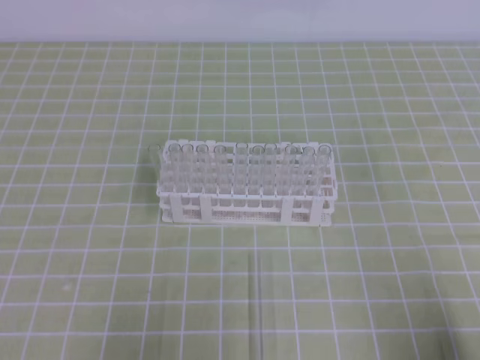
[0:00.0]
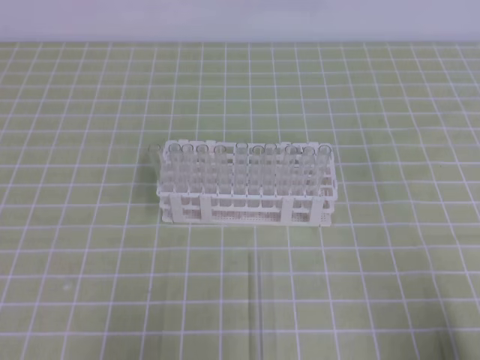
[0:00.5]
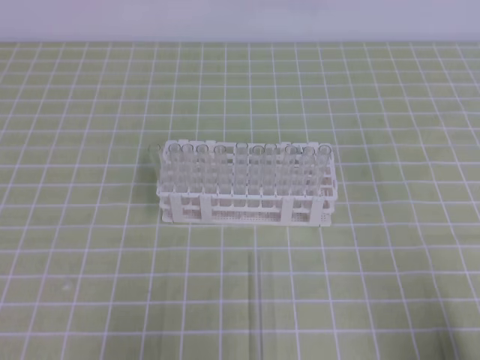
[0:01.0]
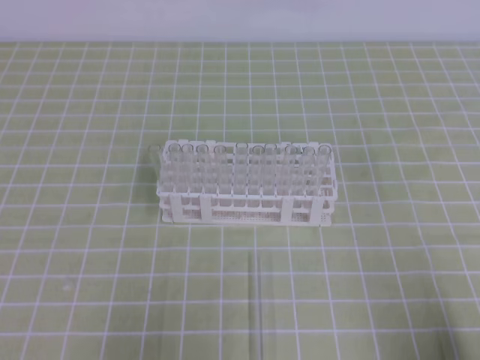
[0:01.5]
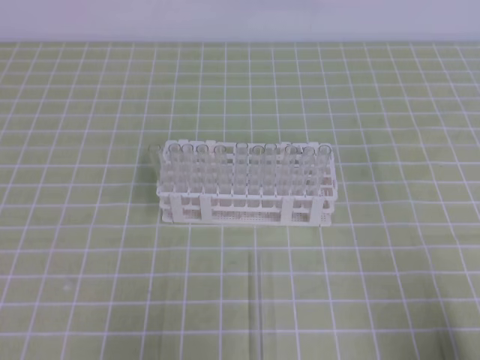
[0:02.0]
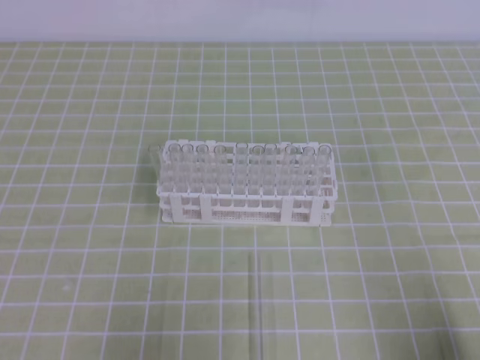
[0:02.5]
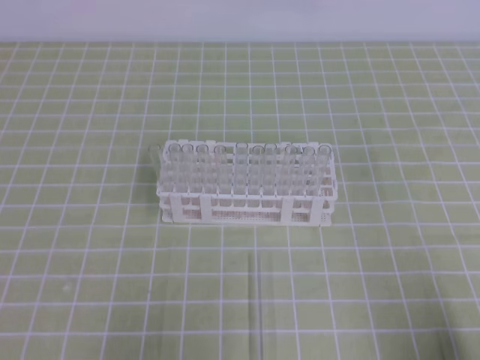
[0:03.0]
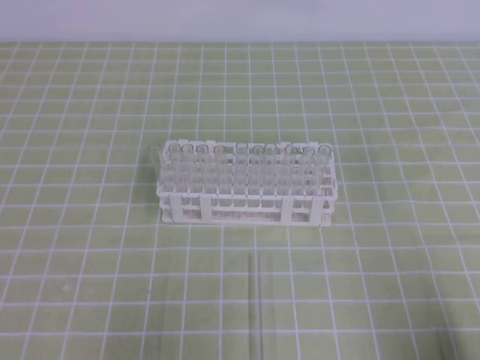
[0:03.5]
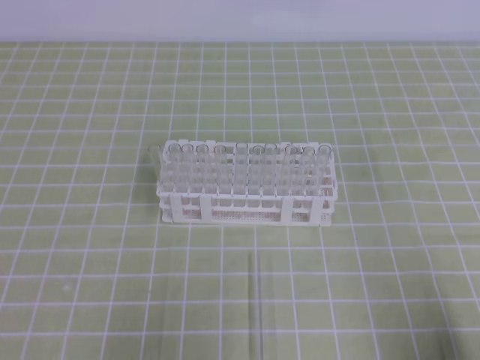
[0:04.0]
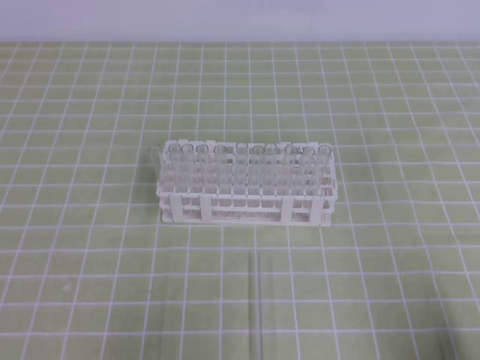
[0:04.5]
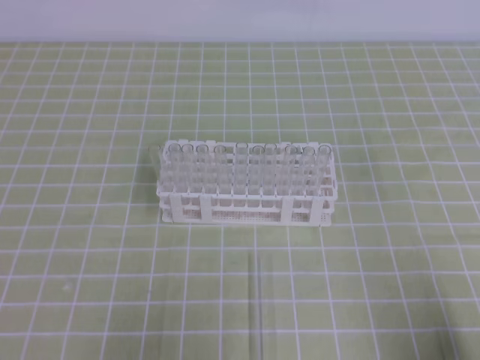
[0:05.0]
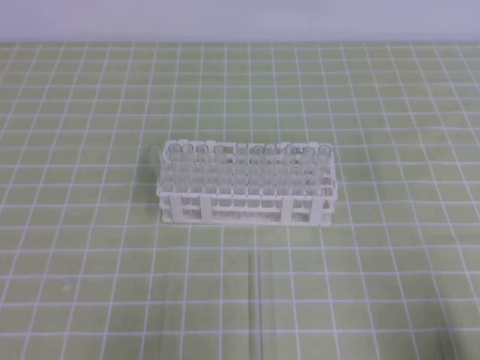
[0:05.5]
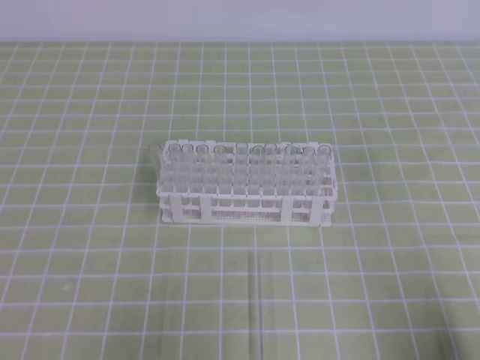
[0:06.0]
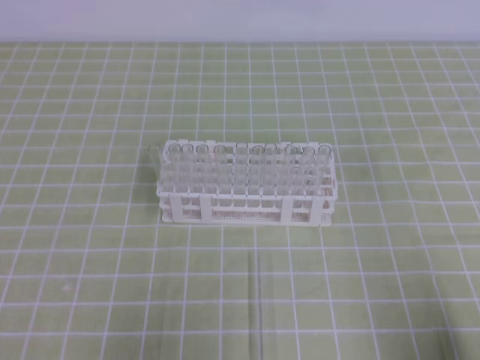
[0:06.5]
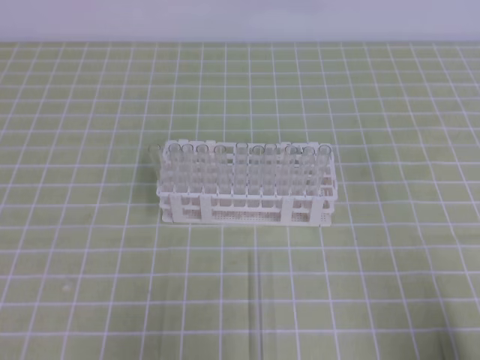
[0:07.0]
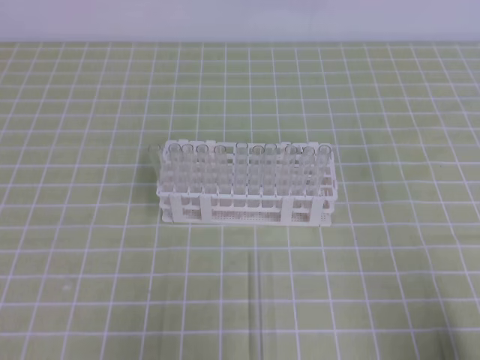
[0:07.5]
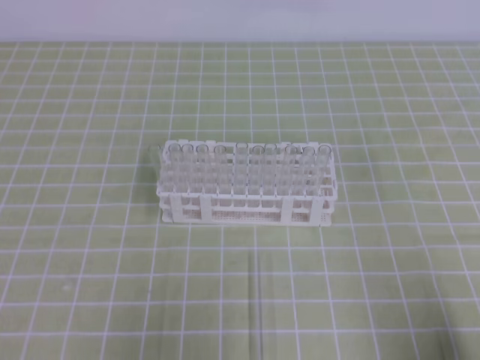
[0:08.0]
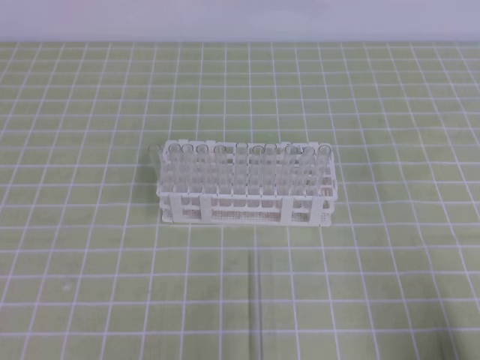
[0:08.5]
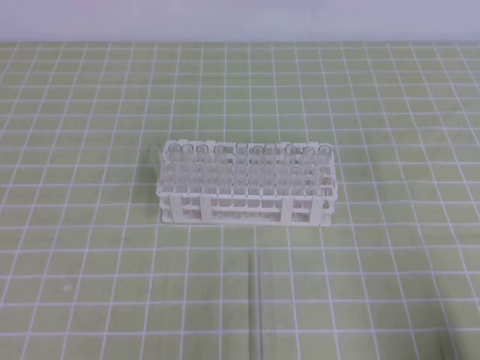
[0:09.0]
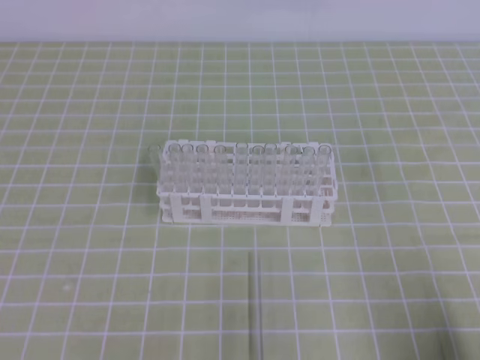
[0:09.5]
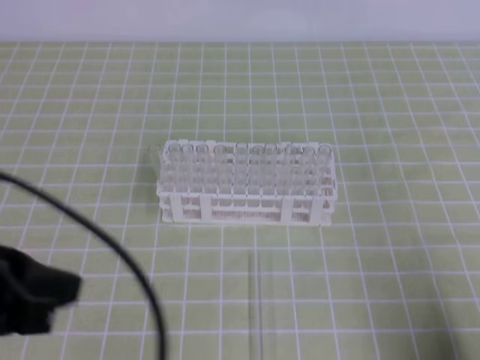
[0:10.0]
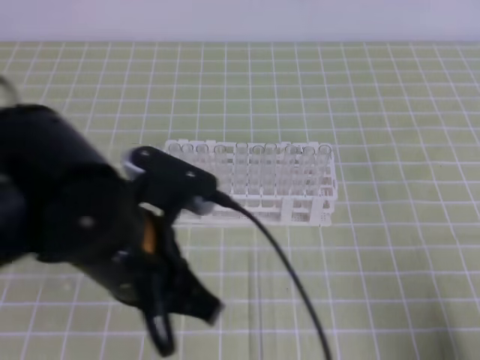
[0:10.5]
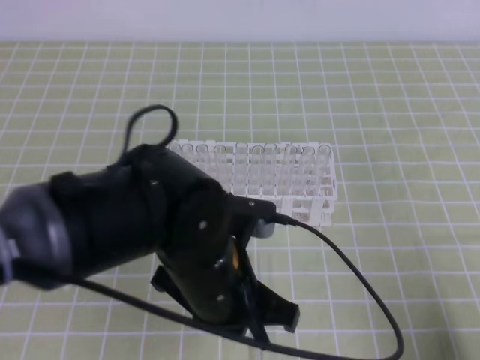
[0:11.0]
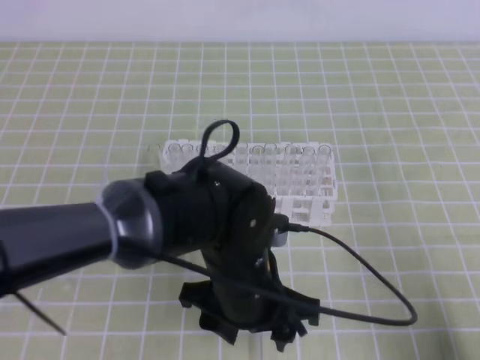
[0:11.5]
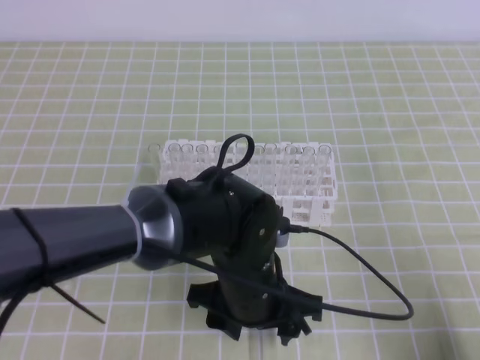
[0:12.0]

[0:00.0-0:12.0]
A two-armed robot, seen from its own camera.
0:00.0 to 0:06.0: Both grippers stay about where they are.
0:08.0 to 0:10.0: The left gripper heads upward and to the right, covering roughly 15 cm, and closes.
0:10.0 to 0:12.0: The left gripper is displaced to the right and downward by approximately 25 cm, and opens up.

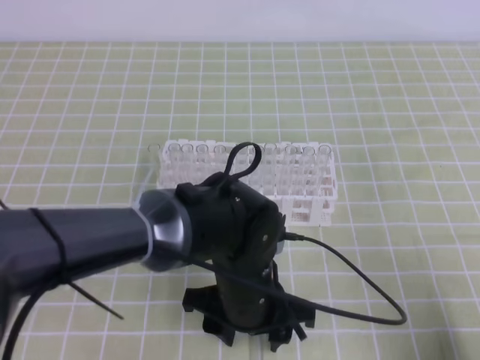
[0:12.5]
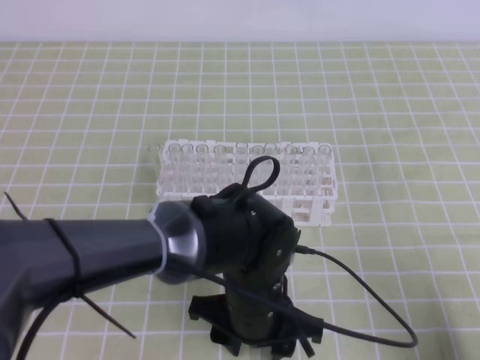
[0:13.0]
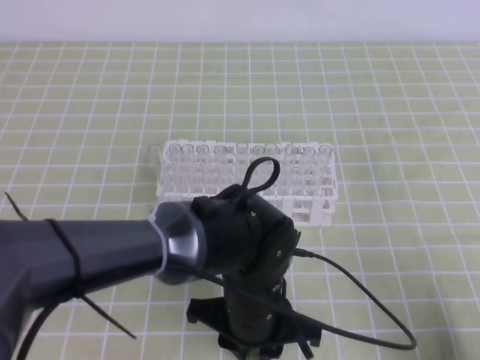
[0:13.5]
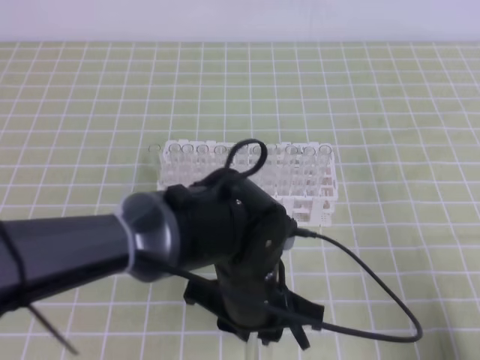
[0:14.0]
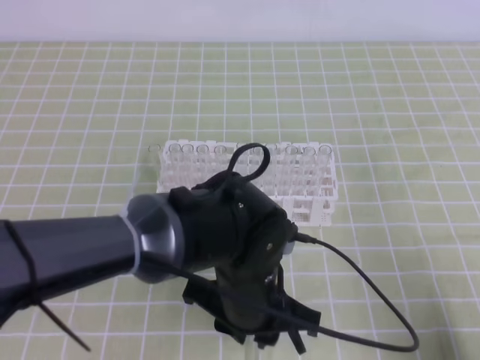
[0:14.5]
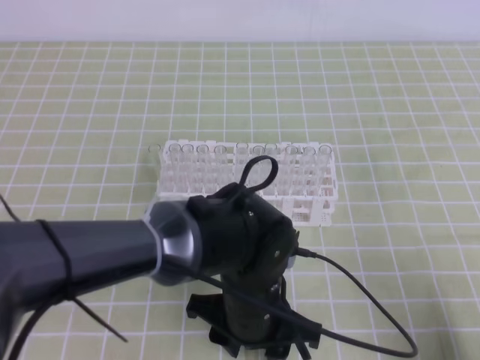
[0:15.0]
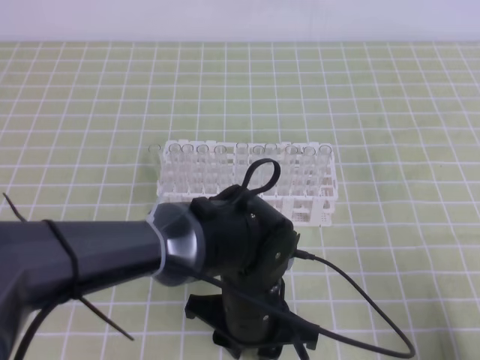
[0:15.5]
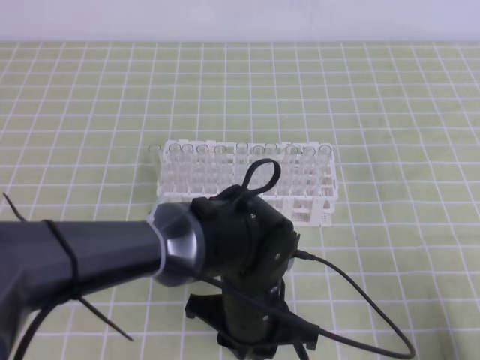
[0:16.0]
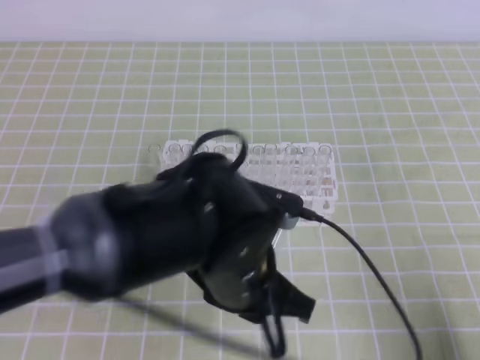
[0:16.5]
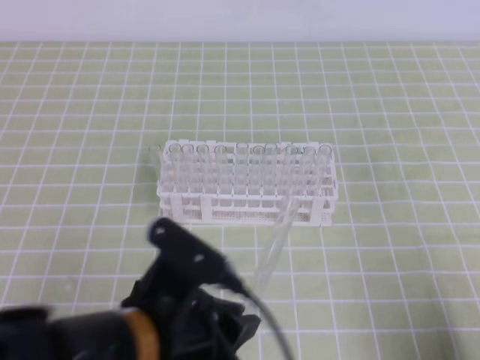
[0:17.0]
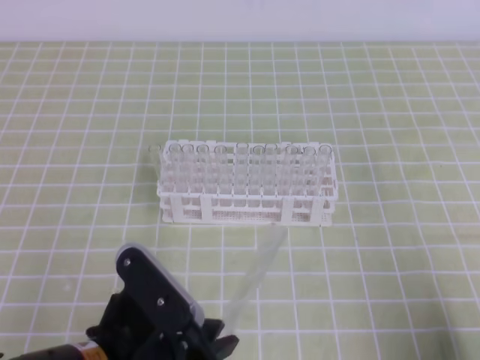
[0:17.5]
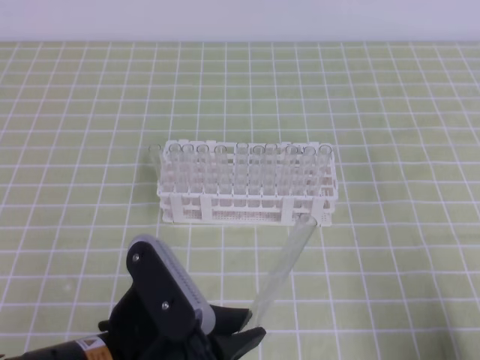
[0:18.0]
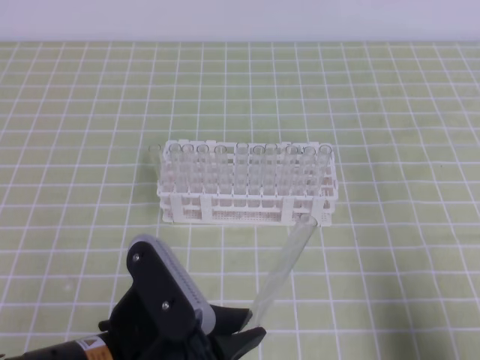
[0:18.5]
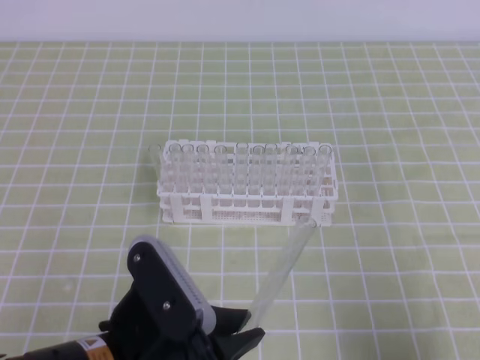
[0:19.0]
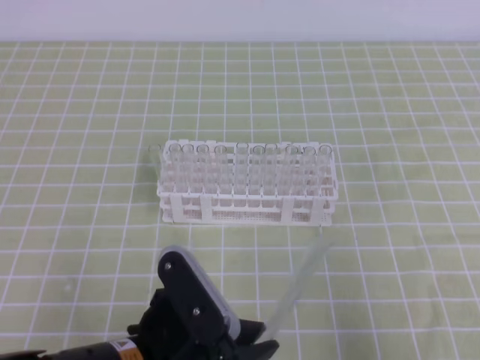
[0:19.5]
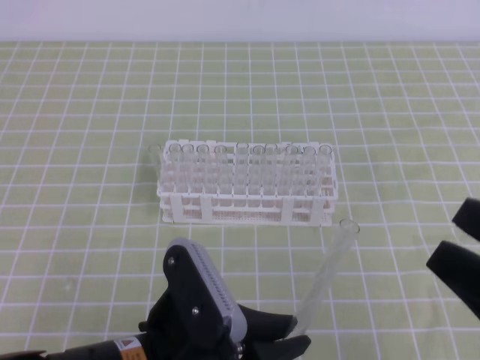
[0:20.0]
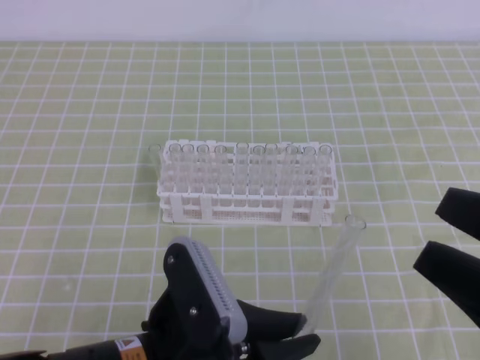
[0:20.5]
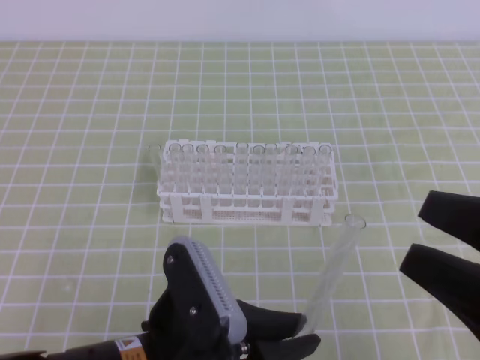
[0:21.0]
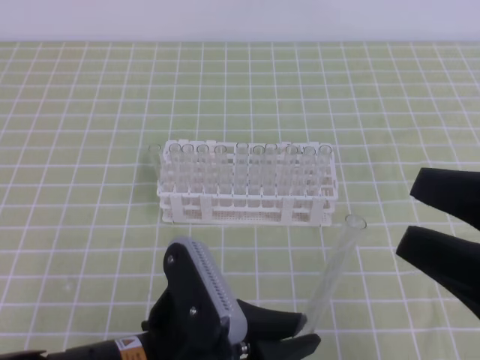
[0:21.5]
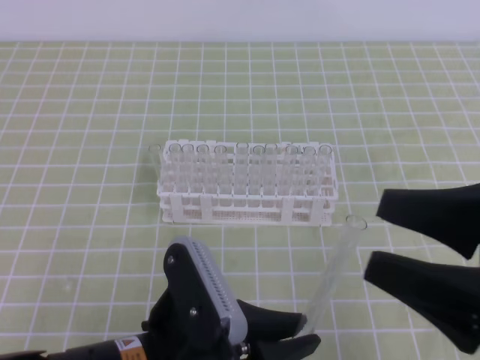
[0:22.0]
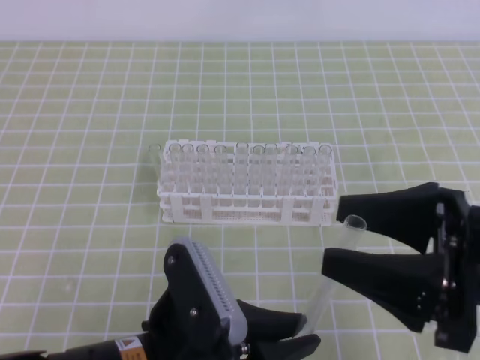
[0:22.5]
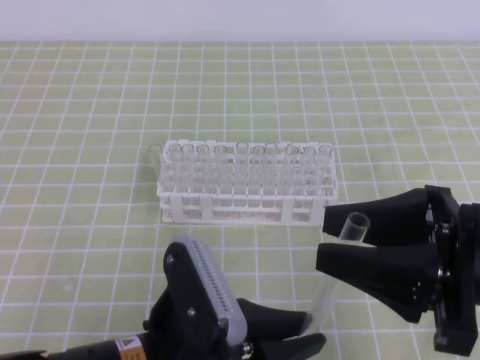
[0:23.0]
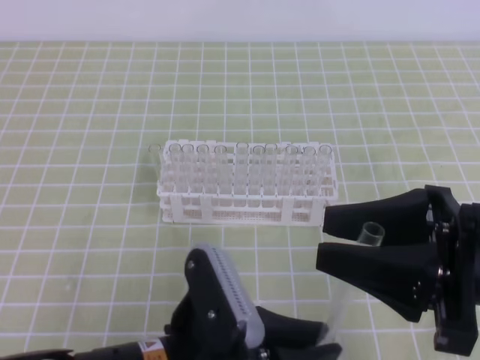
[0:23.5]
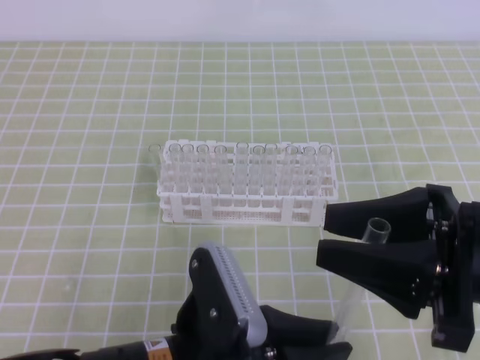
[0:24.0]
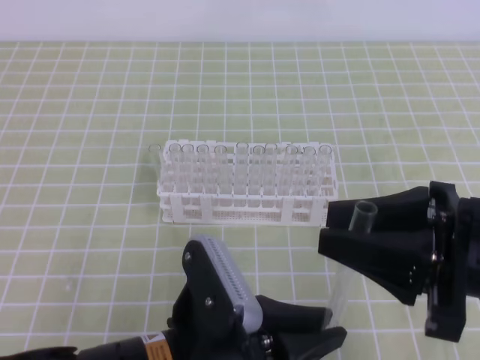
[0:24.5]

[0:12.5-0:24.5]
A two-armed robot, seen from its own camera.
0:12.5 to 0:14.5: The left gripper closes.
0:14.5 to 0:16.5: There are only small adjustments of the grippers.
0:16.5 to 0:18.5: The left gripper travels to the left and backward by about 10 cm.
0:18.5 to 0:20.5: The right gripper moves upward and to the left, about 15 cm, and opens up.
0:20.5 to 0:22.5: The right gripper changes place by about 5 cm.
0:22.5 to 0:24.5: The right gripper closes its fingers.

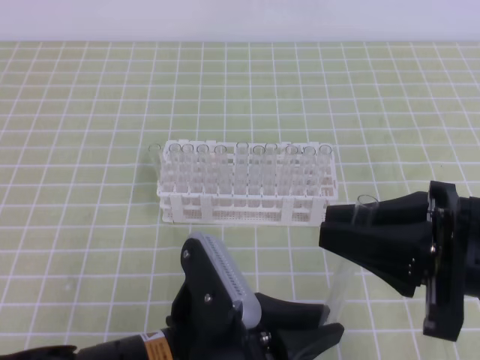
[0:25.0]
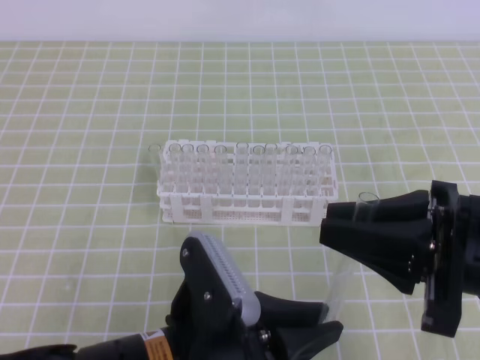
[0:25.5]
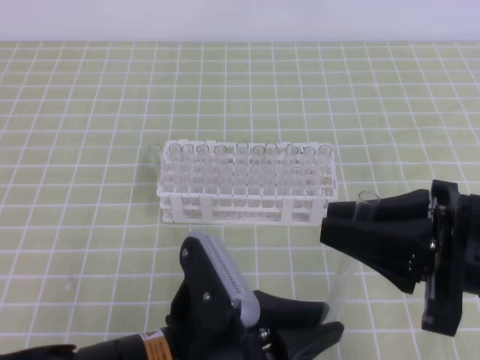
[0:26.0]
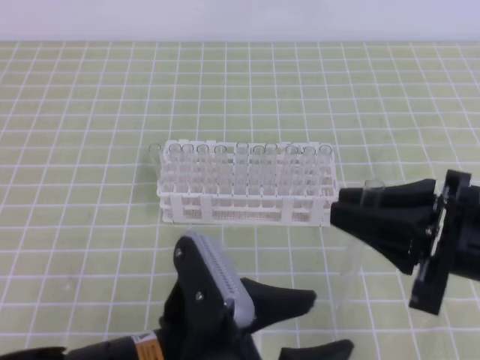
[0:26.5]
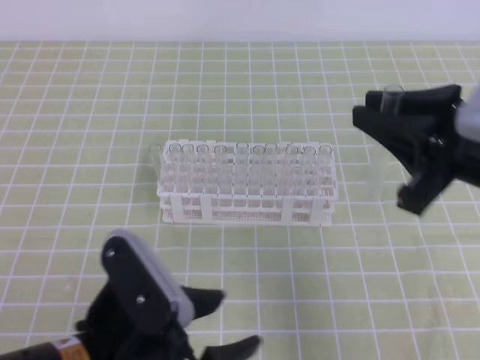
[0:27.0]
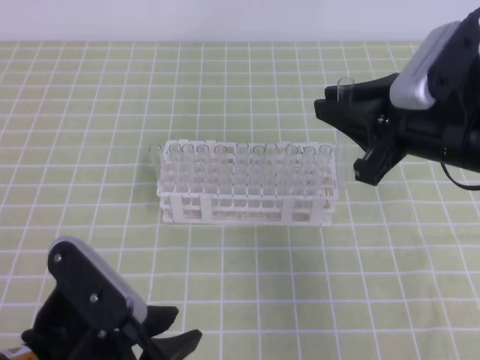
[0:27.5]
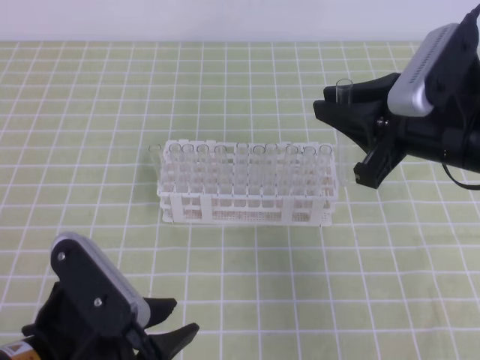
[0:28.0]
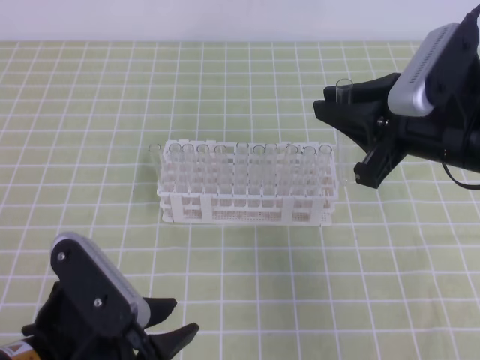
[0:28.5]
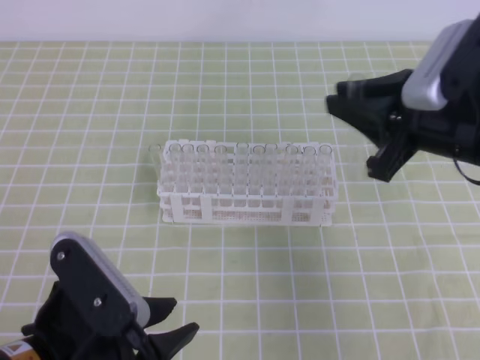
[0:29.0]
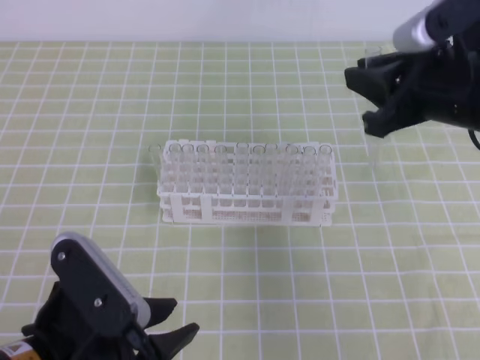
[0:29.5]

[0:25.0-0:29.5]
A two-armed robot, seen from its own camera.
0:25.0 to 0:27.0: The right gripper heads forward, covering approximately 5 cm, while the left gripper shifts approximately 5 cm to the left, and opens.
0:27.0 to 0:29.5: The right gripper goes some 10 cm forward. Meanwhile the left gripper closes its fingers.
